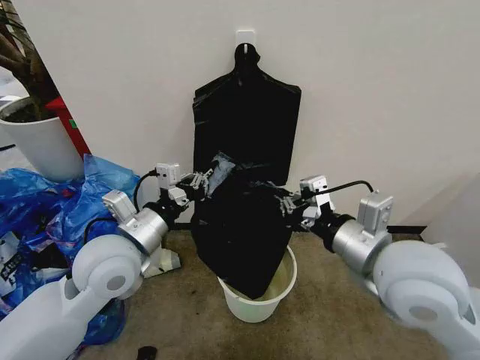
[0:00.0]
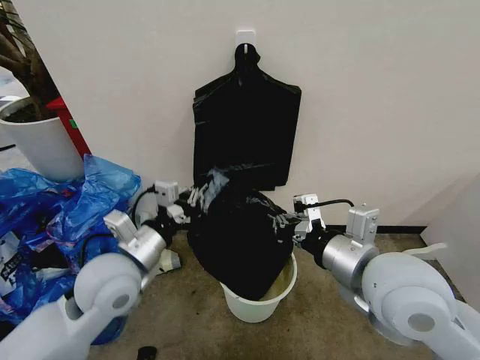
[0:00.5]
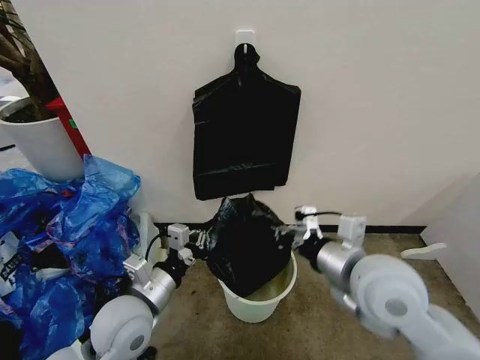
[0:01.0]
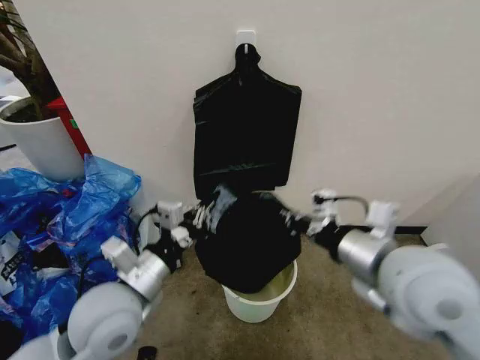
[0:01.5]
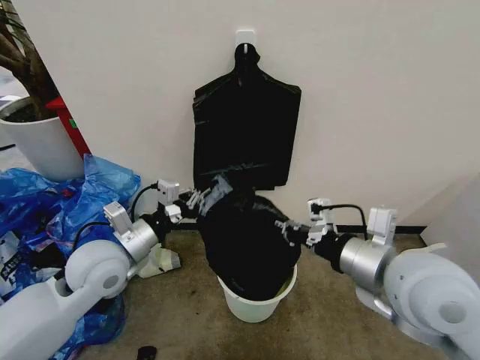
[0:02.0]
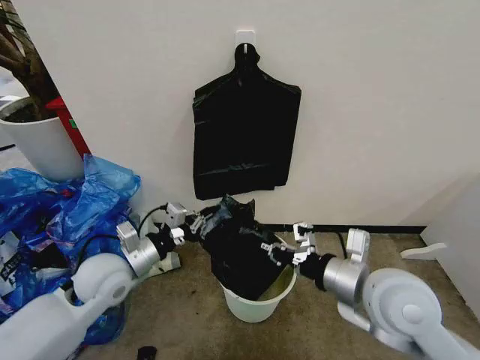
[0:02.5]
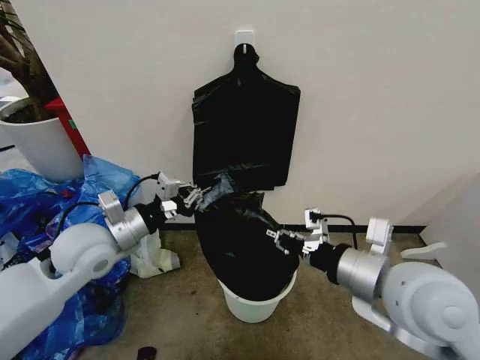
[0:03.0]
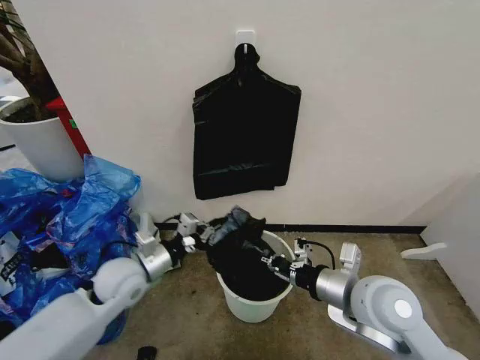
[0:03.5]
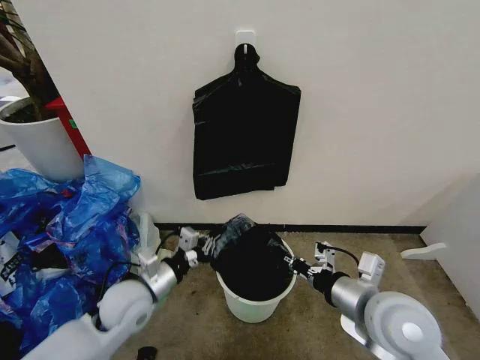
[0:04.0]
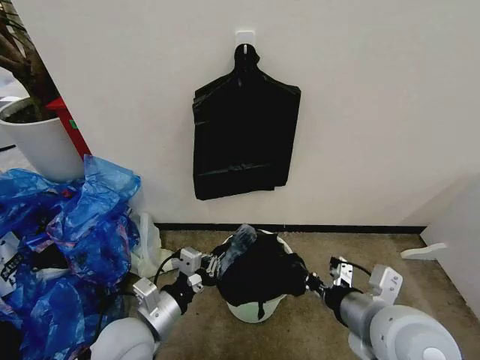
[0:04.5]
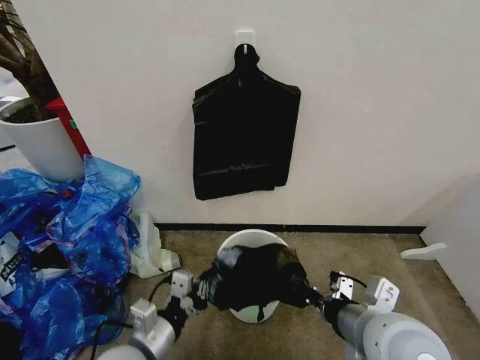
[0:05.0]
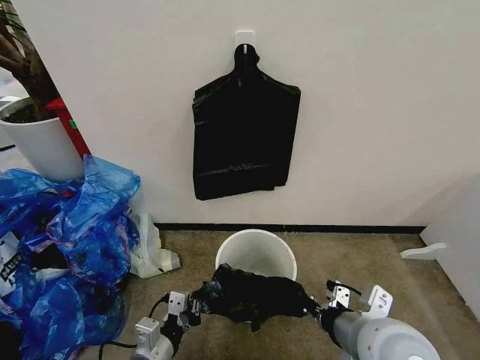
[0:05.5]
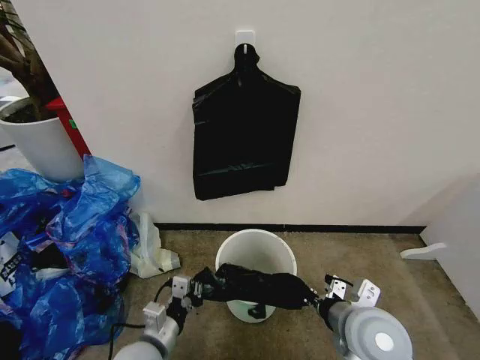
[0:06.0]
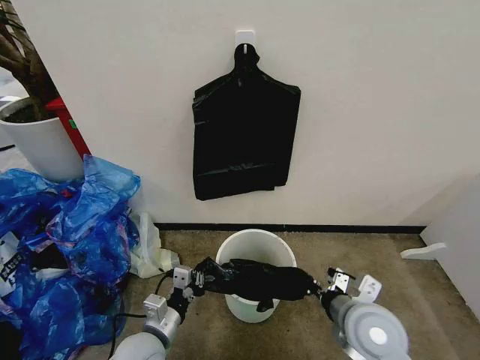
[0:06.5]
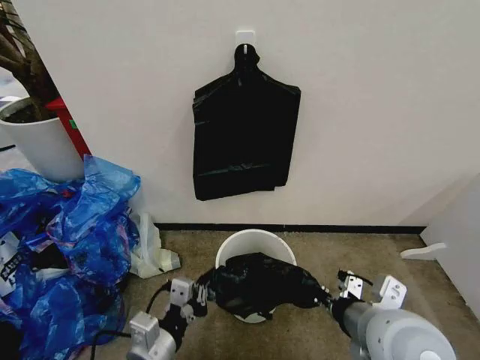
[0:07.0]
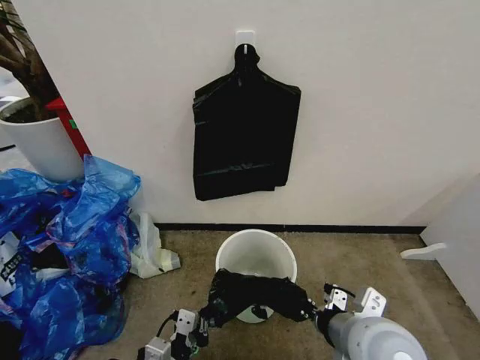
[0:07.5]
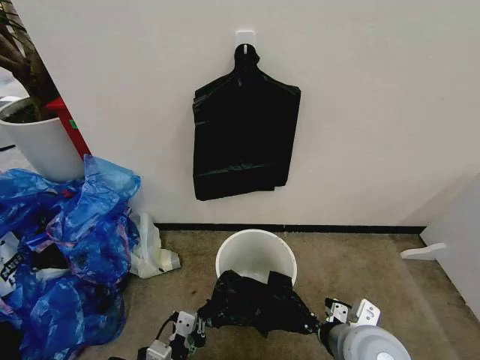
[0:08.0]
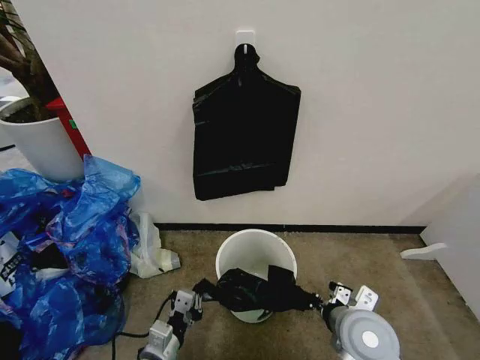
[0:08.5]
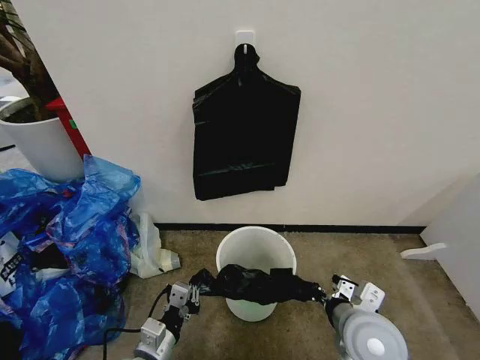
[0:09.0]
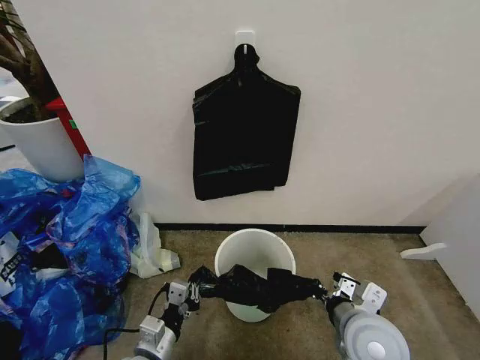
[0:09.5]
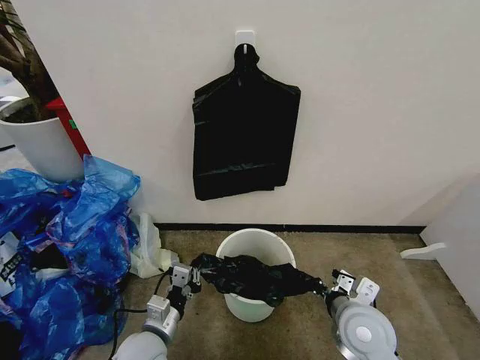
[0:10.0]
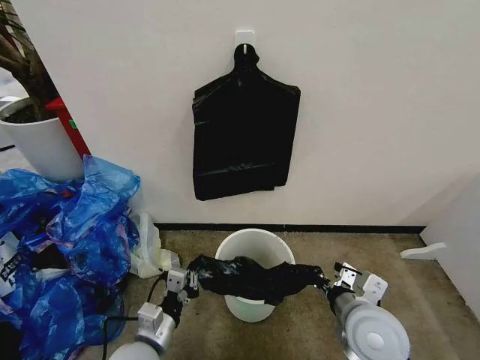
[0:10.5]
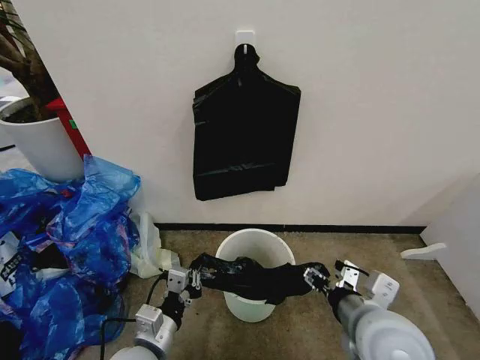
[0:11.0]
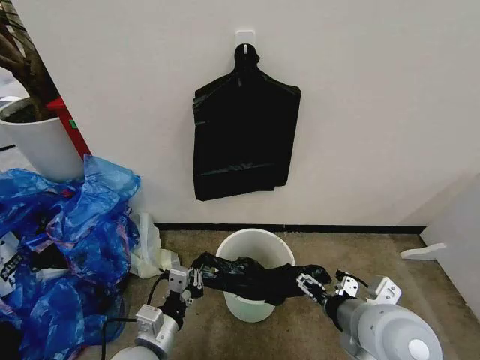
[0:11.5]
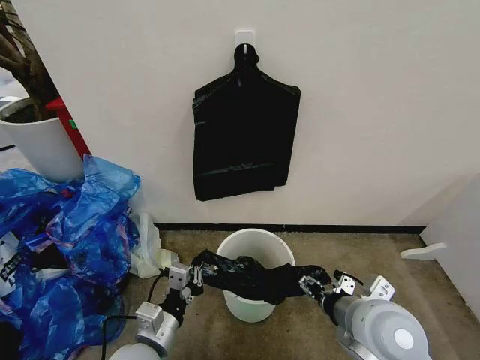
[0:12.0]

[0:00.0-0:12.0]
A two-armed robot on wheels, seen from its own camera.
Task of the whole recording: Place the garbage bag over the trash bin.
2.0 to 4.0 s: The right gripper swings up and down, approximately 10 cm each way, with 2 reversals. Meanwhile the left gripper goes up and down, roughly 15 cm each way, reversing 2 times.
4.0 to 6.0 s: The left gripper moves backward and downward, approximately 10 cm. Meanwhile the right gripper changes place by roughly 5 cm.
6.0 to 8.0 s: The left gripper shifts some 5 cm backward, and moves roughly 10 cm upward and comes back, while the right gripper moves approximately 10 cm upward and comes back.
8.0 to 10.0 s: The right gripper travels forward by some 5 cm. Meanwhile the left gripper shifts about 10 cm forward.
10.0 to 12.0 s: The left gripper travels upward by some 5 cm, while the right gripper shifts about 10 cm upward, and opens up.

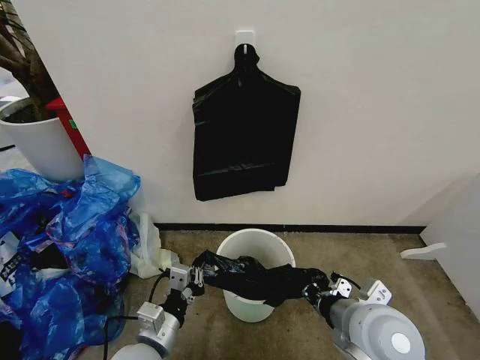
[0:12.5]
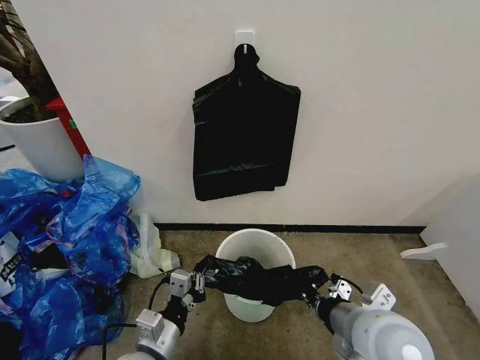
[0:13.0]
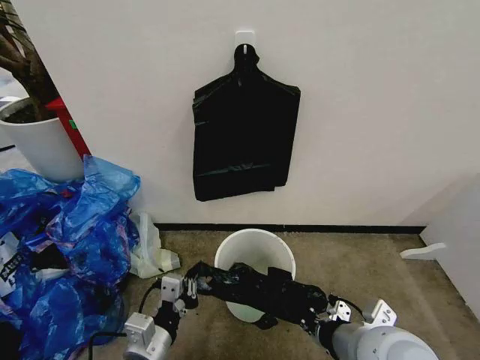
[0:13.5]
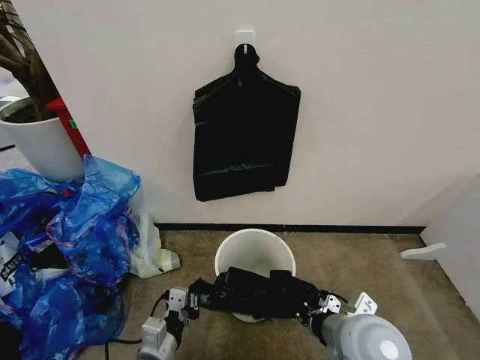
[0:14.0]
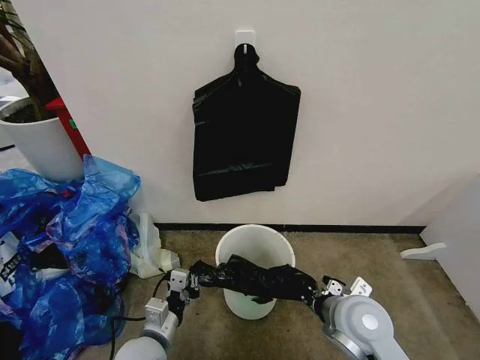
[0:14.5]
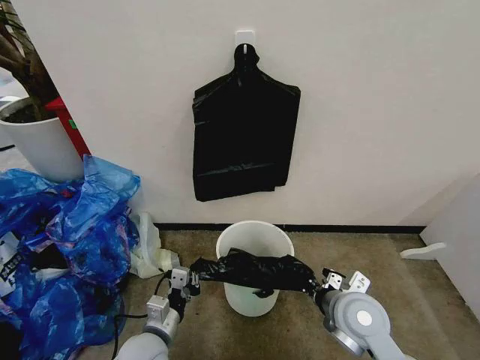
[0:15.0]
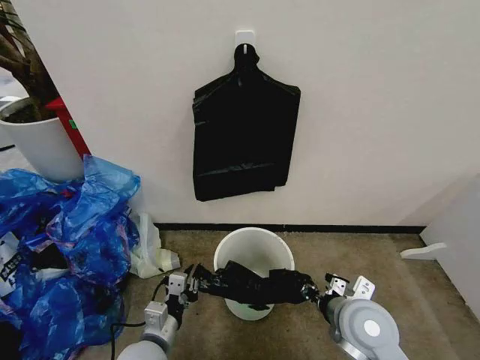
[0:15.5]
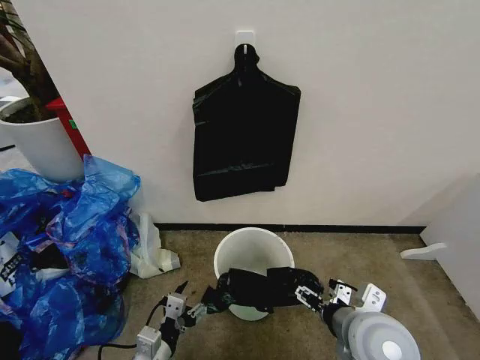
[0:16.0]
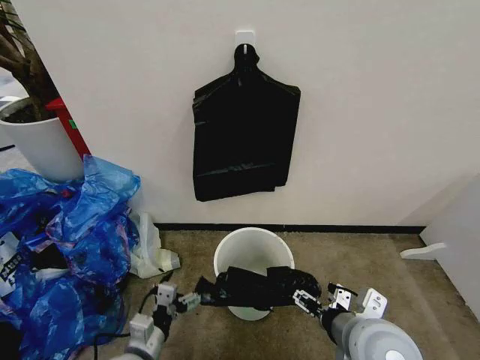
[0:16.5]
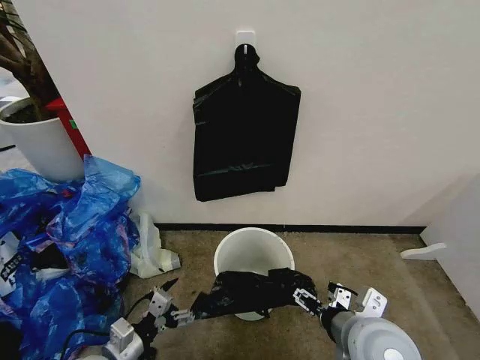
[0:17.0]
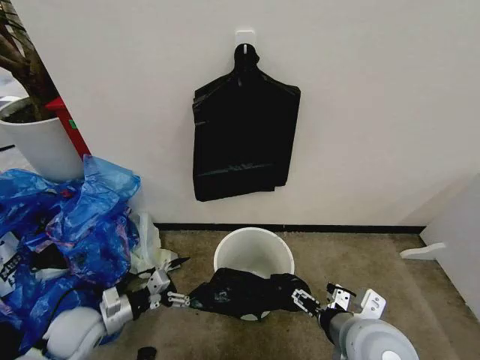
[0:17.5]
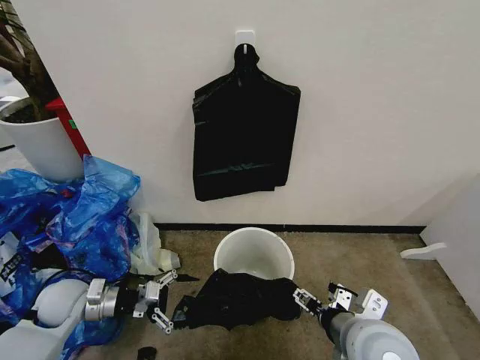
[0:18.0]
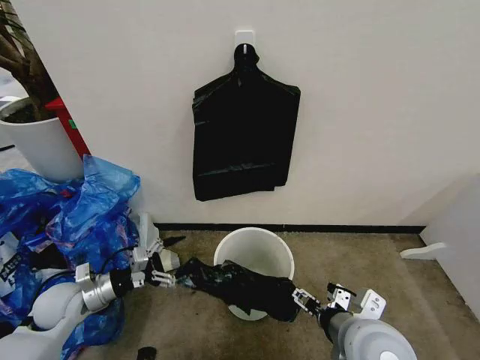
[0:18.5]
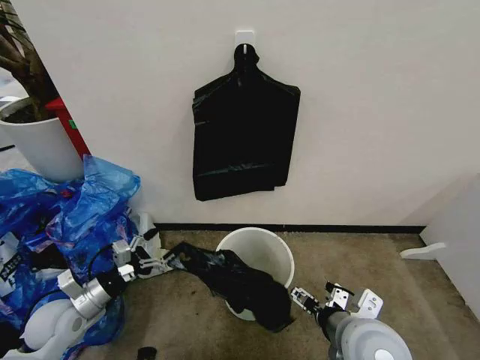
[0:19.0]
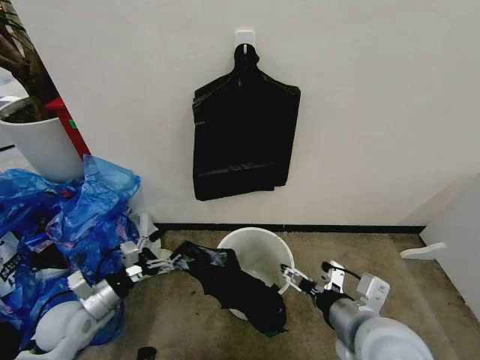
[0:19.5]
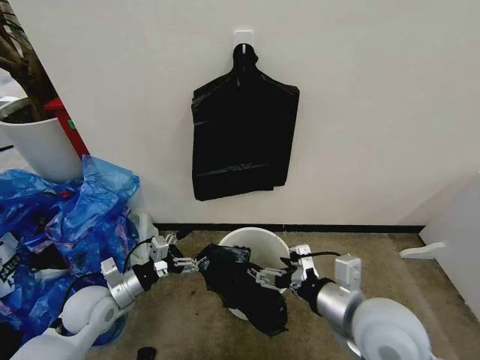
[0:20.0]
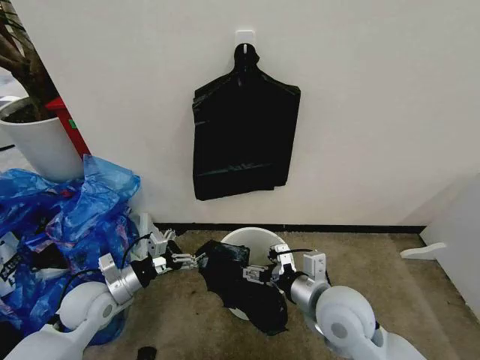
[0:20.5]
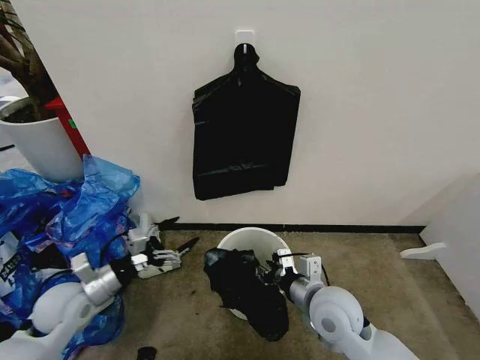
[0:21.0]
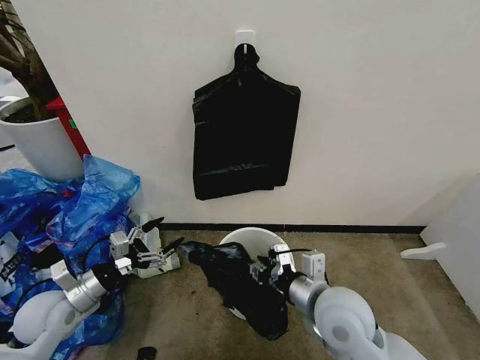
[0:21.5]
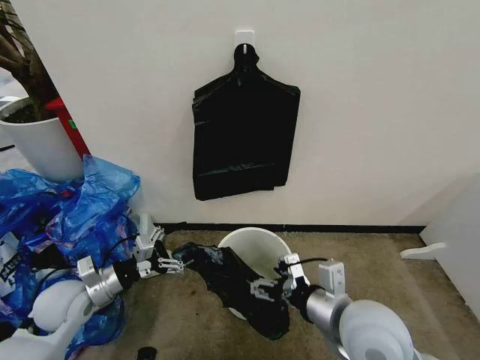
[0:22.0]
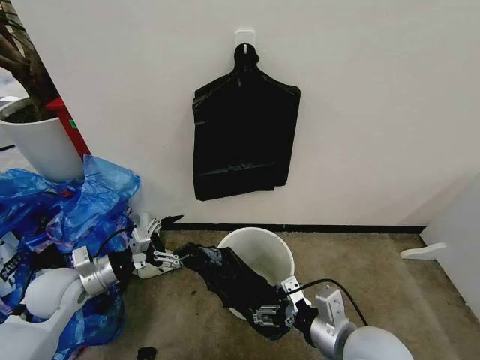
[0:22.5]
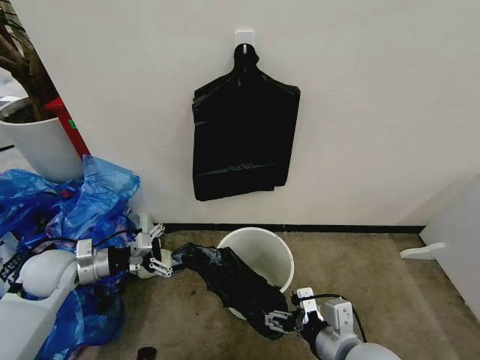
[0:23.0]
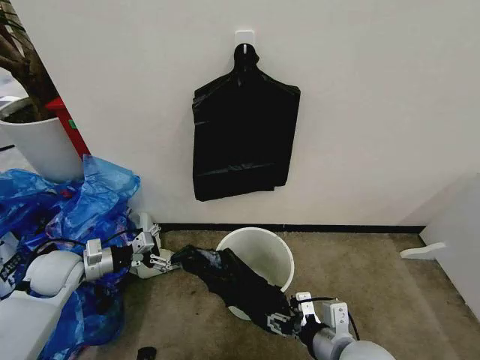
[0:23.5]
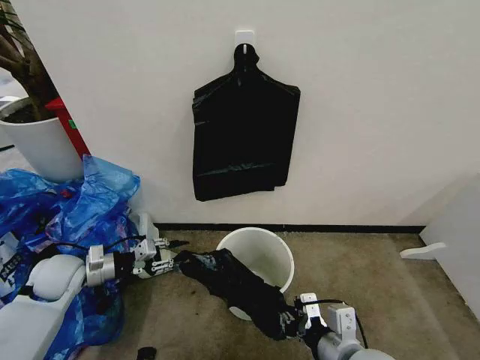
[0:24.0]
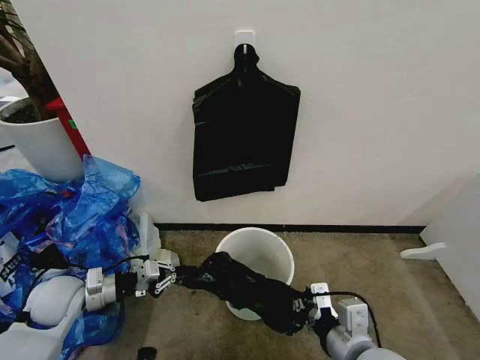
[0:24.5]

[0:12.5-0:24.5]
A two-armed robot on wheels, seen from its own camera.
Task of the whole recording: Place the garbage bag over the trash bin.
12.5 to 14.5 s: The right gripper goes some 5 cm downward, while the left gripper changes place by about 5 cm.
14.5 to 16.5 s: The left gripper opens; the right gripper is displaced backward by about 5 cm, and opens.
16.5 to 18.5 s: The left gripper heads to the left and forward, covering about 20 cm.
18.5 to 20.5 s: The left gripper shifts some 5 cm to the right. The right gripper moves forward, about 5 cm.
20.5 to 22.5 s: The right gripper heads backward, covering some 5 cm, and closes, then opens again; the left gripper shifts by some 5 cm.
22.5 to 24.5 s: The left gripper closes its fingers. Meanwhile the right gripper closes its fingers.

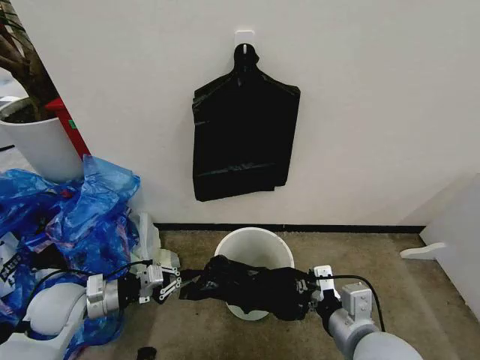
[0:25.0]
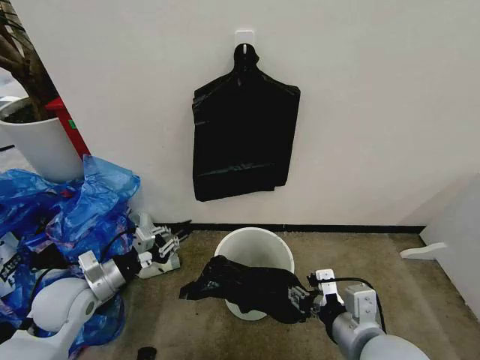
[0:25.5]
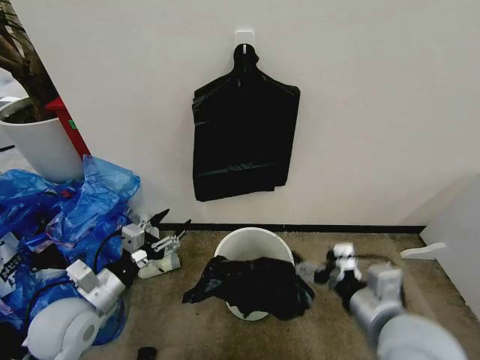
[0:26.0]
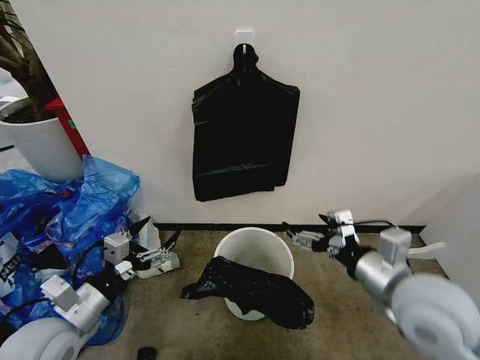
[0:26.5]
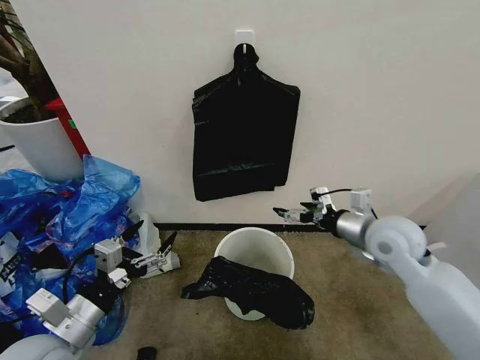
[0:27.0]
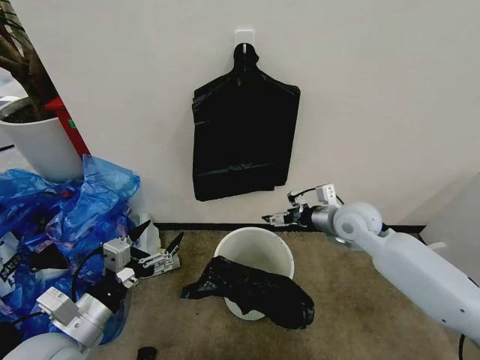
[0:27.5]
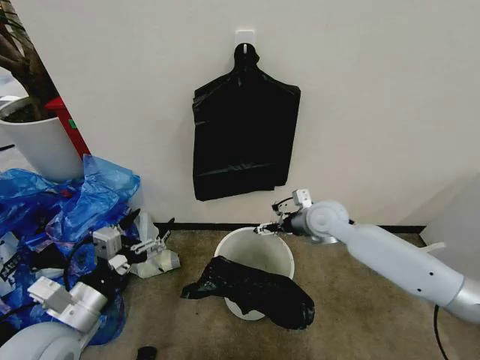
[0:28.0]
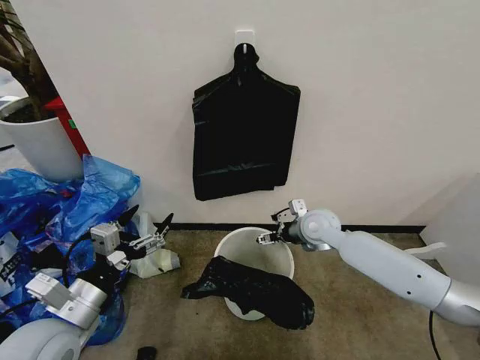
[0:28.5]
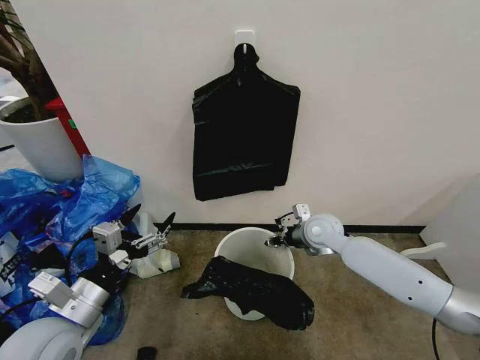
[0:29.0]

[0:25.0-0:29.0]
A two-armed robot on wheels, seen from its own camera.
Task of the whole recording: Place the garbage bag over the trash bin.
25.0 to 27.0 s: The left gripper heads backward, upward and to the right, covering about 15 cm, and opens its fingers; the right gripper shifts some 20 cm forward and to the right, and opens.
27.0 to 29.0 s: The right gripper shifts approximately 15 cm downward, forward and to the left, and closes.
